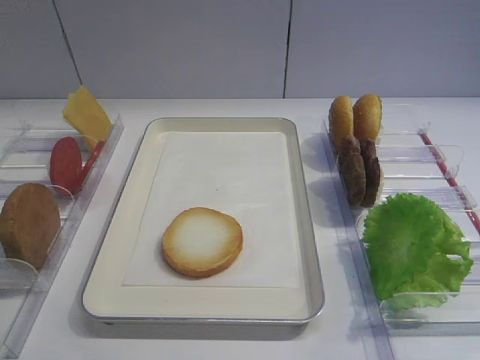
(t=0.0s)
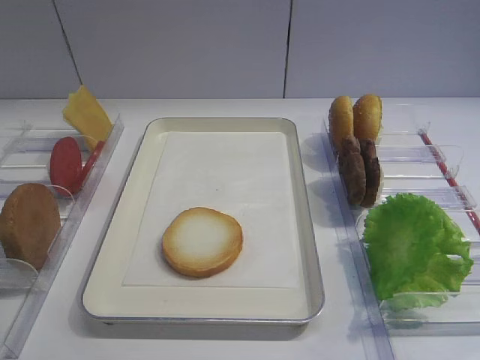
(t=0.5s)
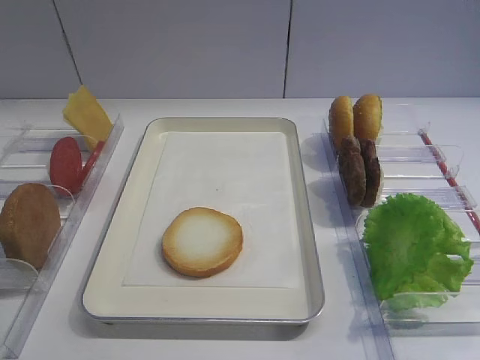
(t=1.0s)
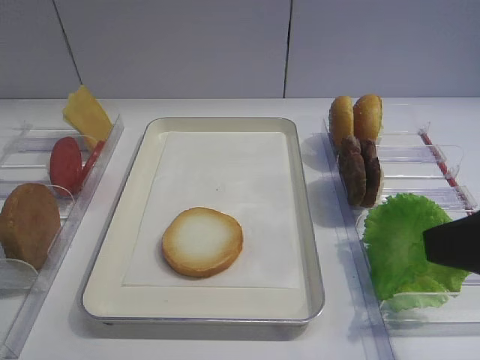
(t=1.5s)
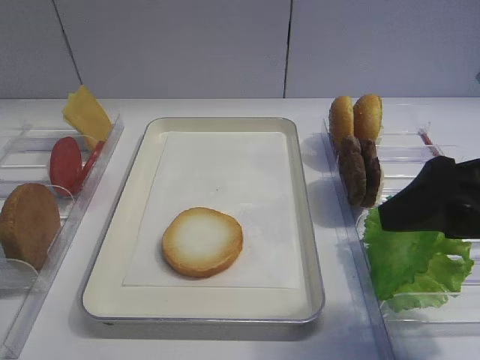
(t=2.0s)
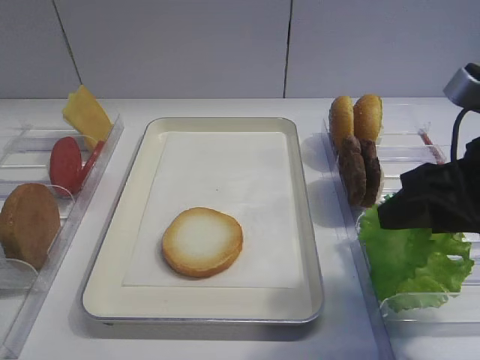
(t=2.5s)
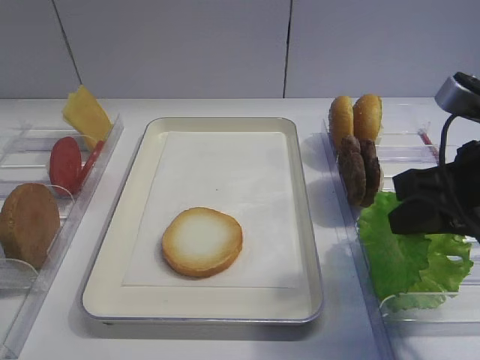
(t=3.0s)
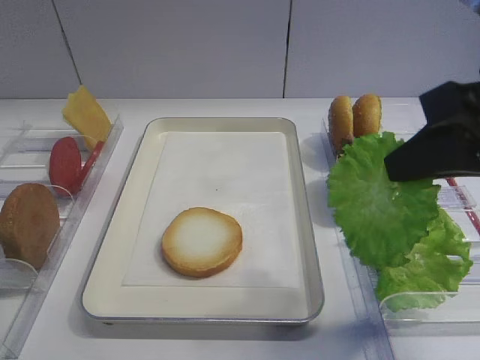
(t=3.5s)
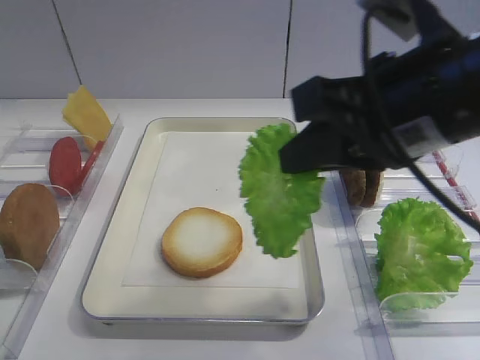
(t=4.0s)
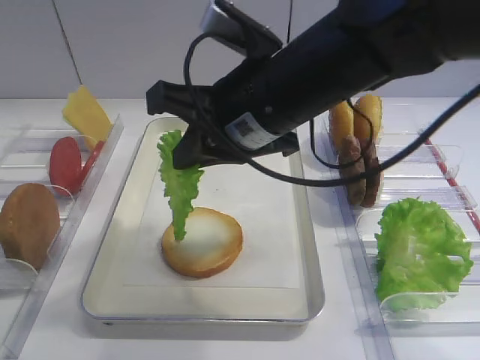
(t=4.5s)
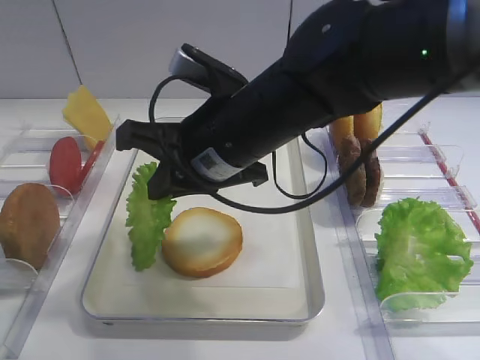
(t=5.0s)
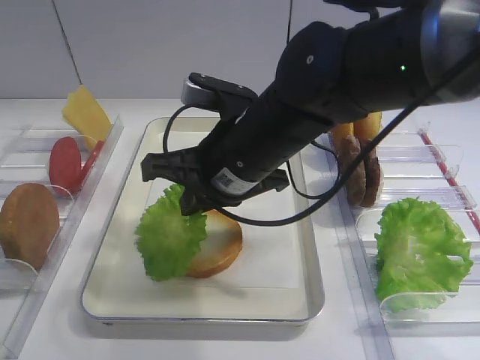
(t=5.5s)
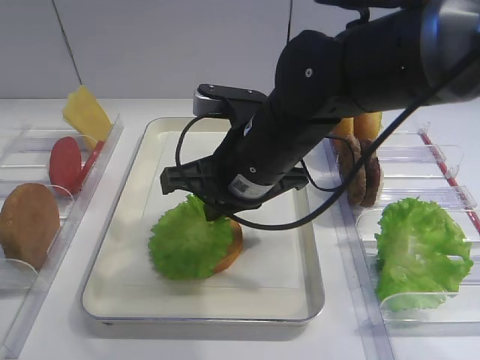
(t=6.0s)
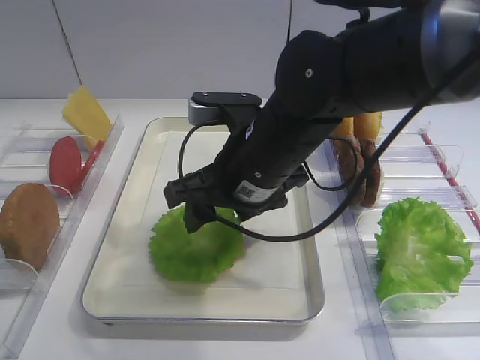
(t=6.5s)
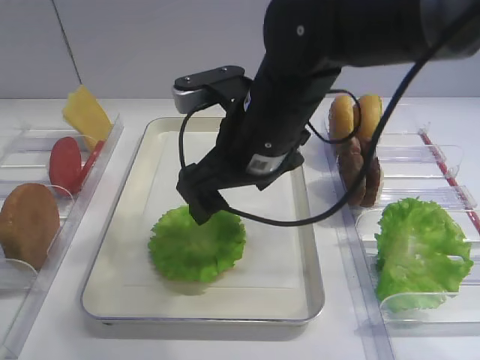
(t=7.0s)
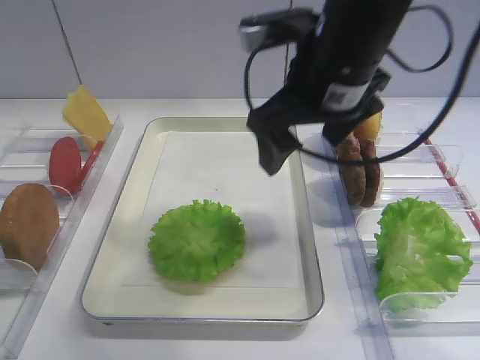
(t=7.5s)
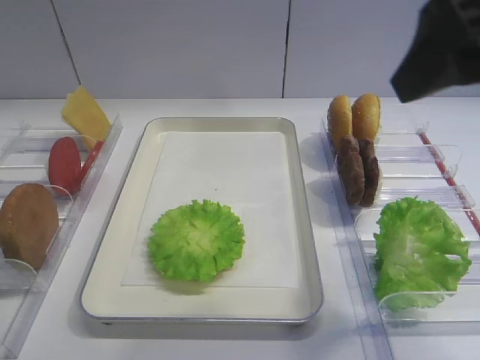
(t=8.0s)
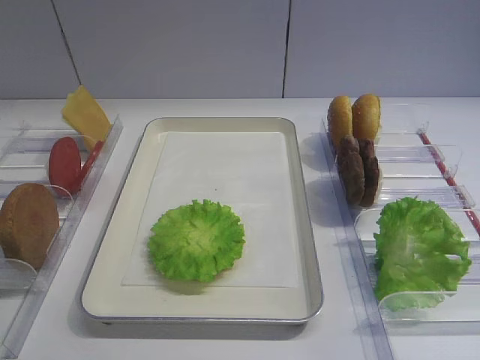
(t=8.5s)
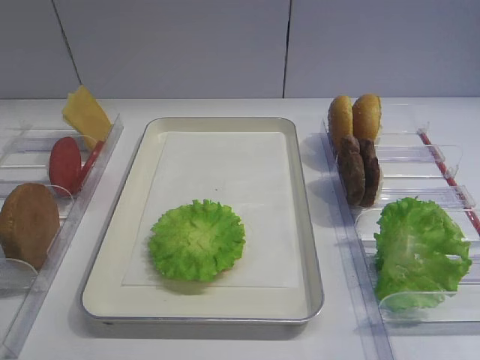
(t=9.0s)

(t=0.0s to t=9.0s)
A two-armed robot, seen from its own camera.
Step, t=0.0s - t=3.5s: Pick up the lettuce leaf with the right gripper.
Step, t=4.0s - t=7.0s: Place the lettuce leaf on the bread slice with the right gripper.
t=2.0s - t=4.5s: The right gripper moves to the left and forward, about 20 cm, and closes.
t=4.5s - t=7.0s: The right gripper moves about 5 cm, and opens.
t=7.0s - t=9.0s: The right gripper goes some 35 cm backward and to the right.

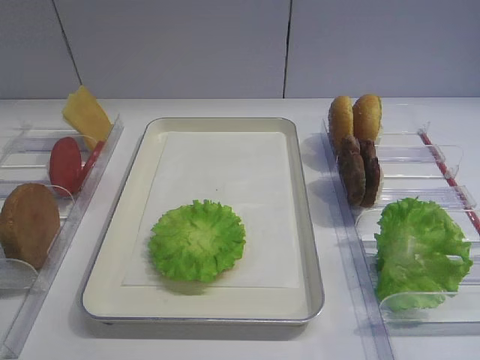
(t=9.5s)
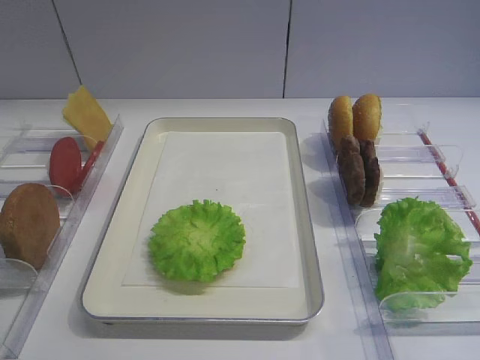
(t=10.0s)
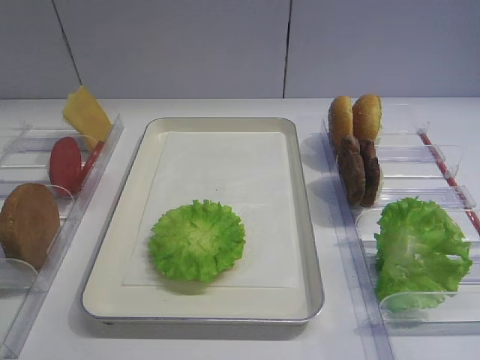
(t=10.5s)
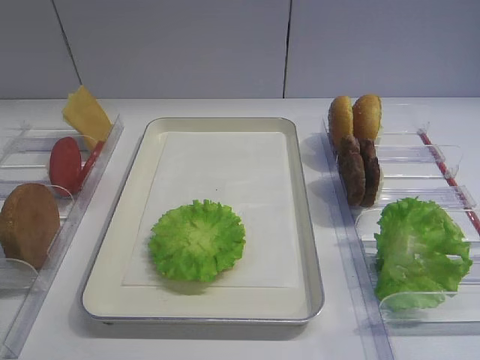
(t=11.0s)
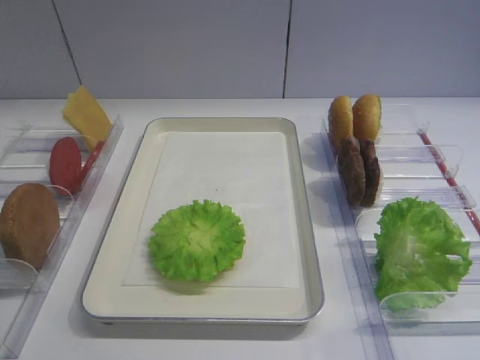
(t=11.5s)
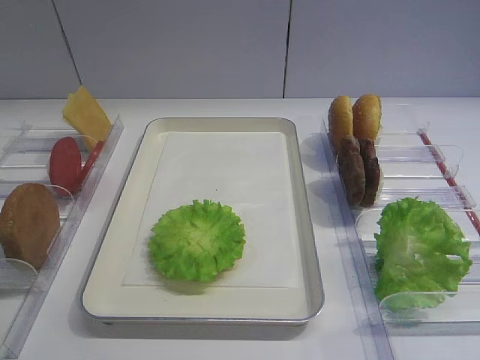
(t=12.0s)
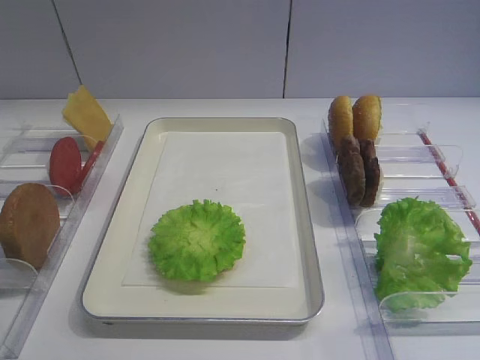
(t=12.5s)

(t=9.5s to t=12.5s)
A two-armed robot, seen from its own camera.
t=9.5s - t=12.5s: Both grippers stay put.

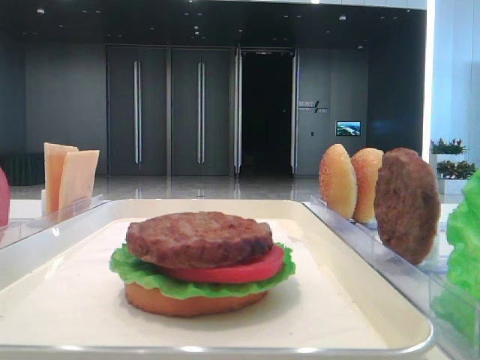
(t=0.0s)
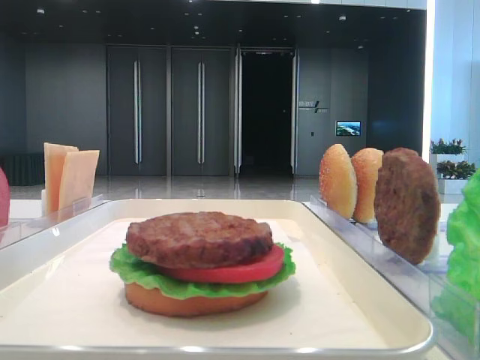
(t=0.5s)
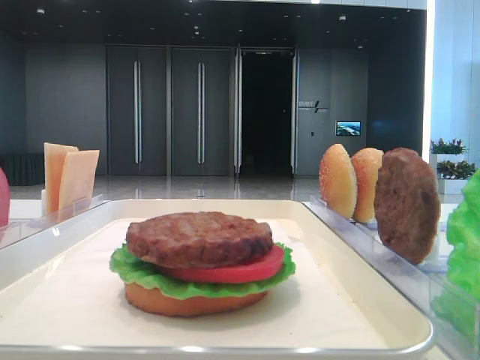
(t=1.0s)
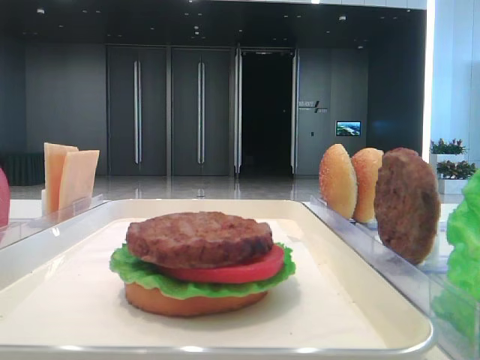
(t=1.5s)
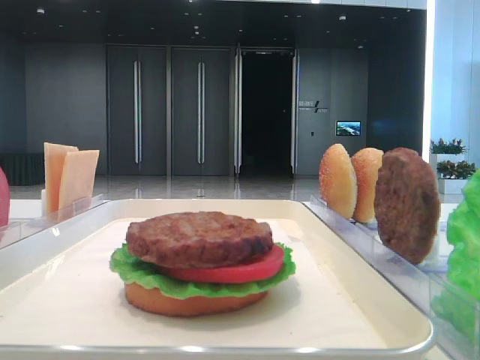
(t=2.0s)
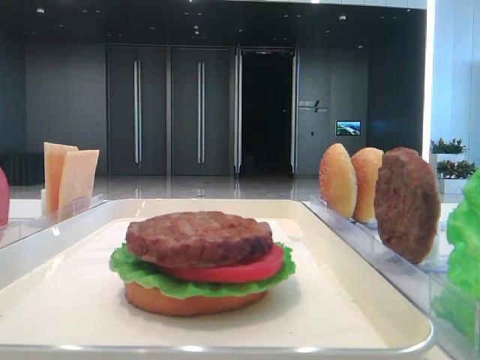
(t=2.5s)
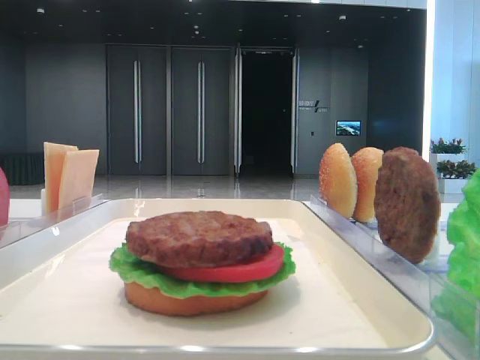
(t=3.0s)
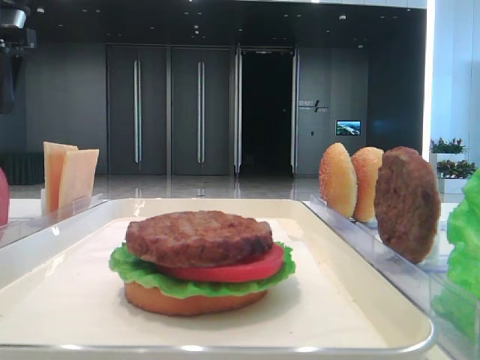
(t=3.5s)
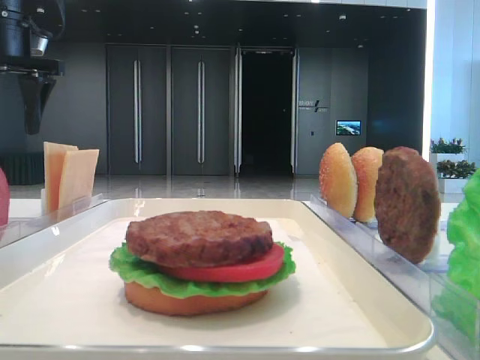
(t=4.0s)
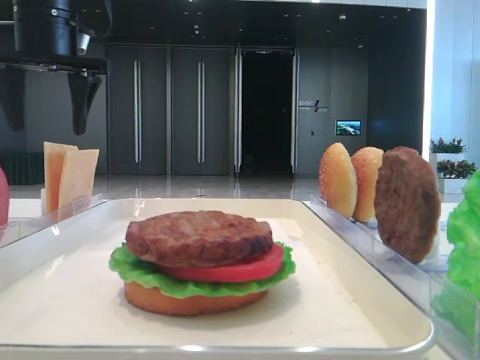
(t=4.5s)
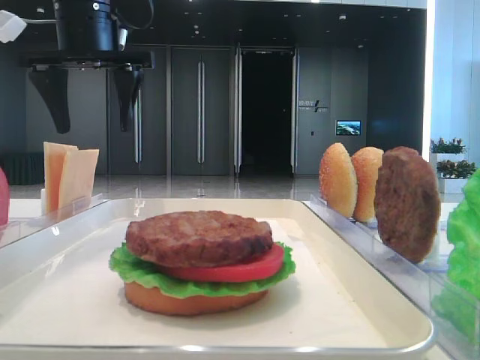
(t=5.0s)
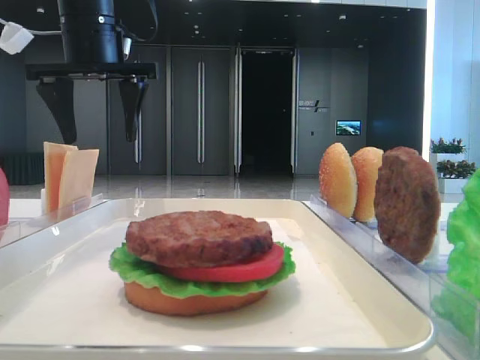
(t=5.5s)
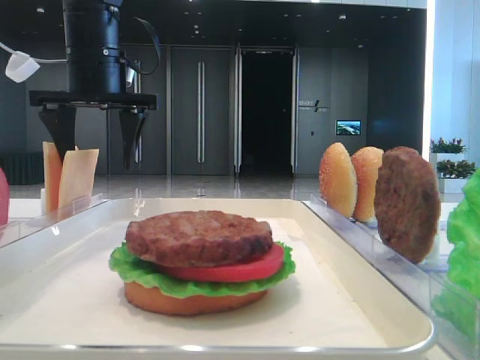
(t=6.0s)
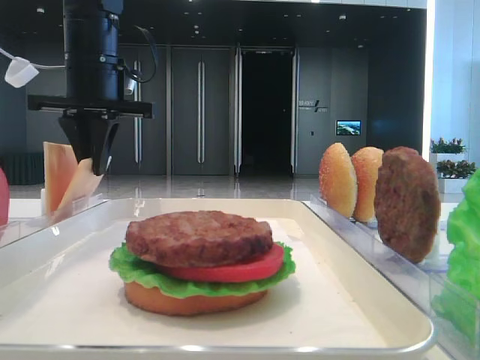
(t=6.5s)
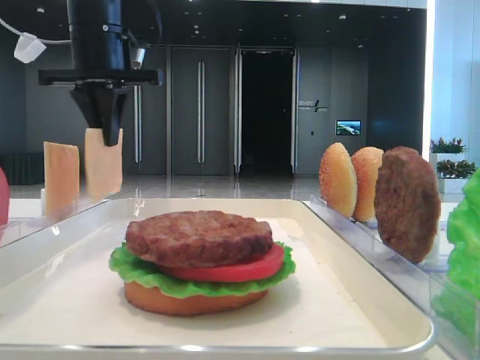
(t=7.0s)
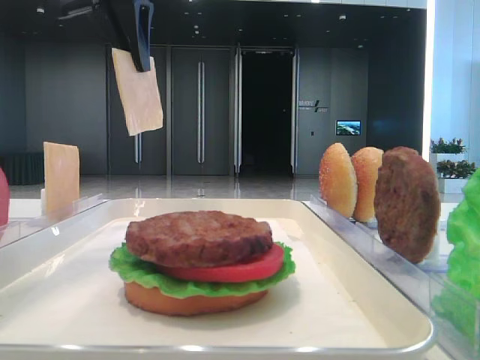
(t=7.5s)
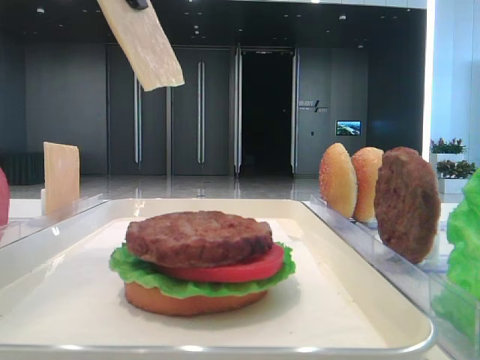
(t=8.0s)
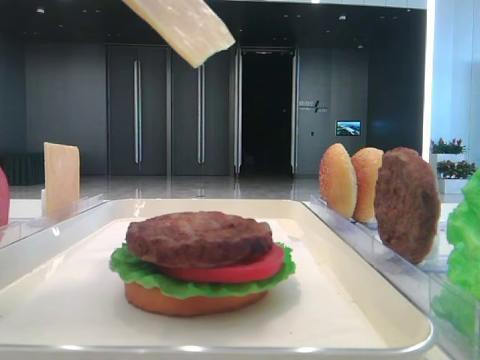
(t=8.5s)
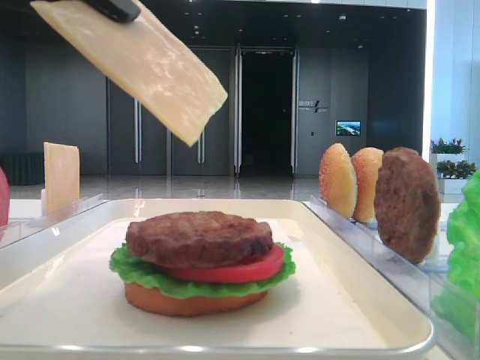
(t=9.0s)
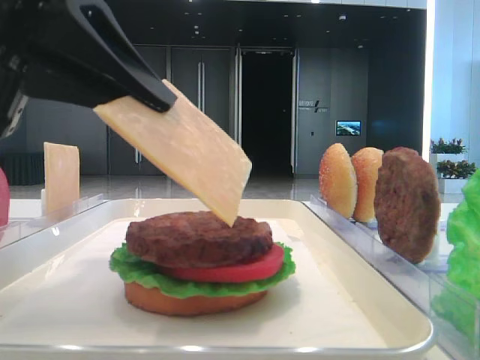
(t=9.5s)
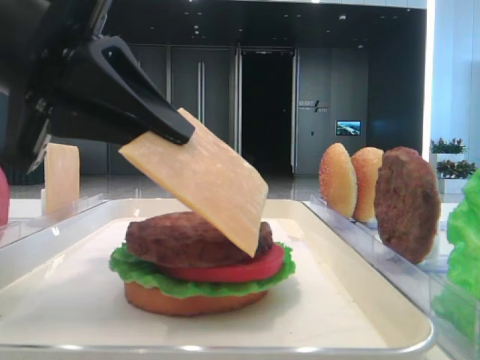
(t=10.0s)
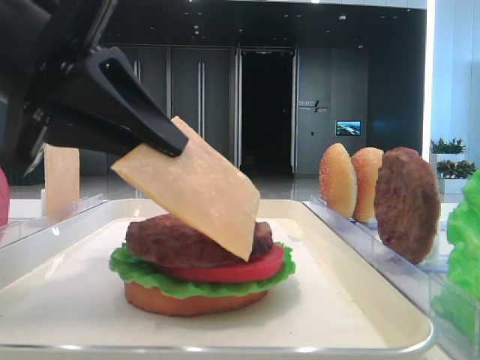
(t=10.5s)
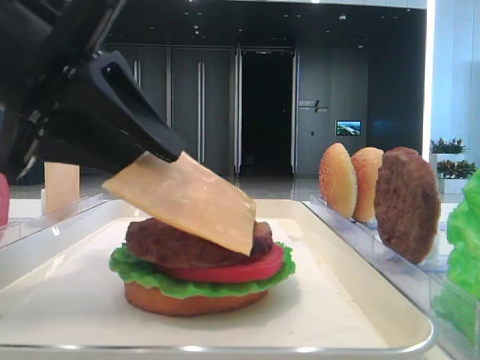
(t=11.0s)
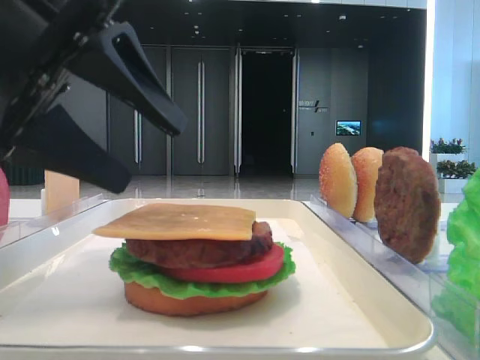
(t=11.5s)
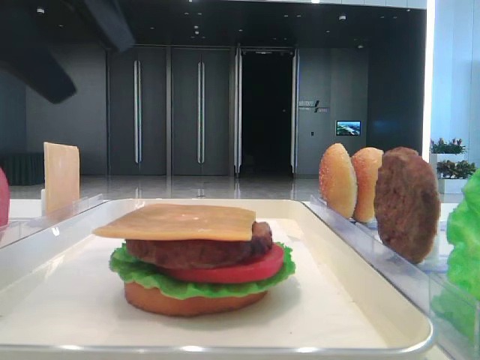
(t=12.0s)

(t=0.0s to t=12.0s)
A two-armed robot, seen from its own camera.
Step, t=0.0s - t=6.5s: Pick up the cheese slice with the left hand.
Step, t=7.0s - t=11.0s: Place the cheese slice on the patty with the left hand.
t=2.0s - t=4.0s: The left gripper heads forward, covering approximately 35 cm.
t=4.0s - t=6.0s: The left gripper moves to the right, approximately 10 cm.
t=6.0s - t=8.0s: The left gripper shifts about 20 cm backward and upward, and closes up.
t=8.0s - t=10.0s: The left gripper travels downward and backward by about 20 cm.
t=10.0s - t=12.0s: The left gripper is displaced upward by roughly 10 cm, and opens its fingers.

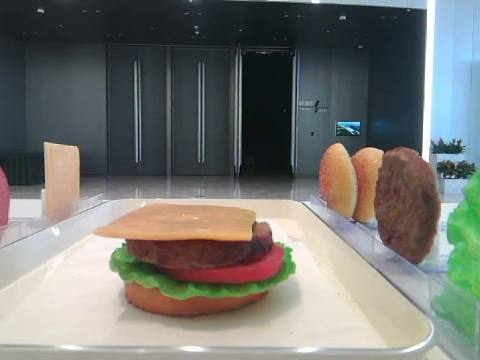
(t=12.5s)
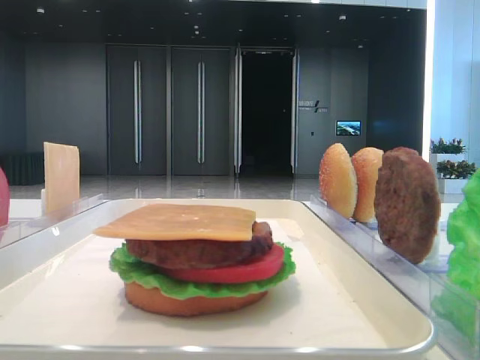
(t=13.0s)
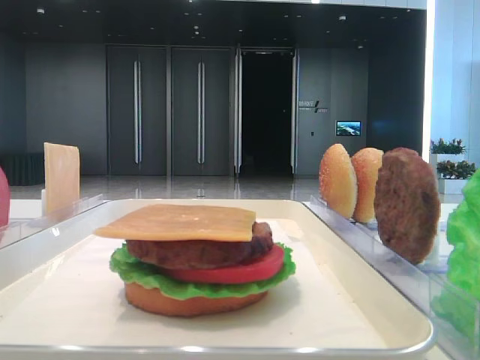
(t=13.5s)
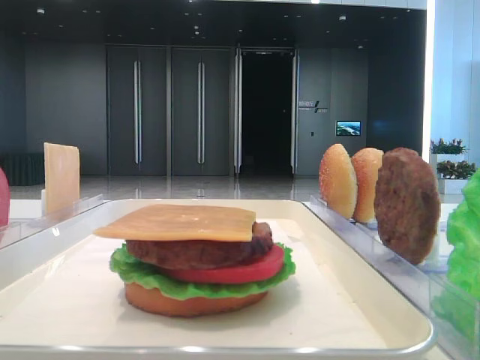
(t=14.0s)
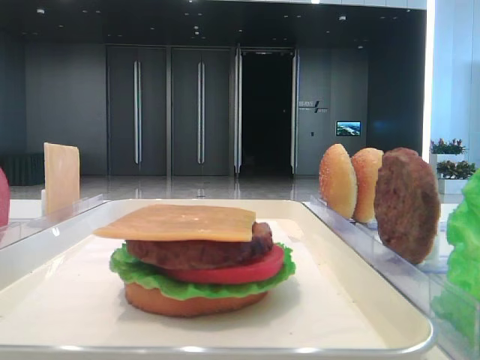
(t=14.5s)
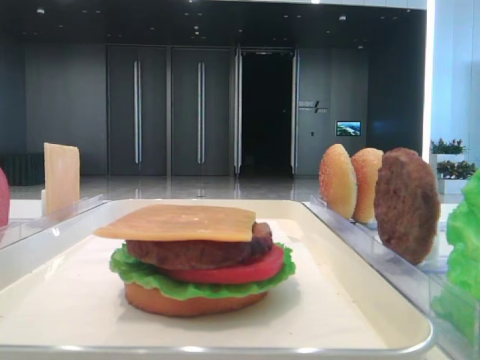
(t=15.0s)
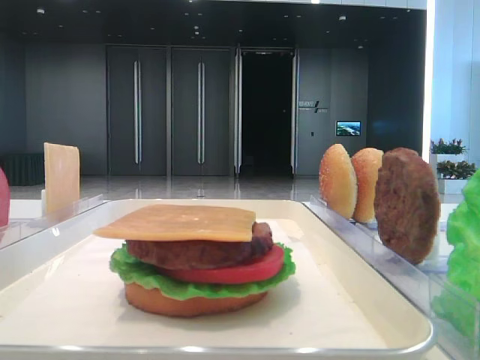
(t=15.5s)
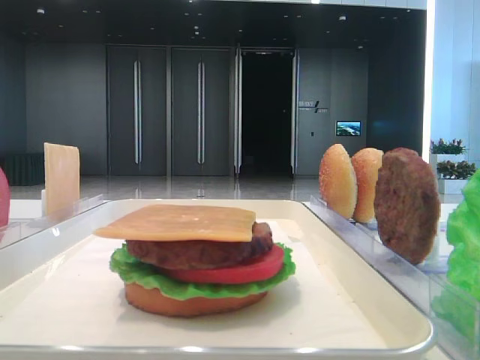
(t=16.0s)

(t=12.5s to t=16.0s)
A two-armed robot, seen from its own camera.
t=14.5s - t=16.0s: Neither gripper changes place.
